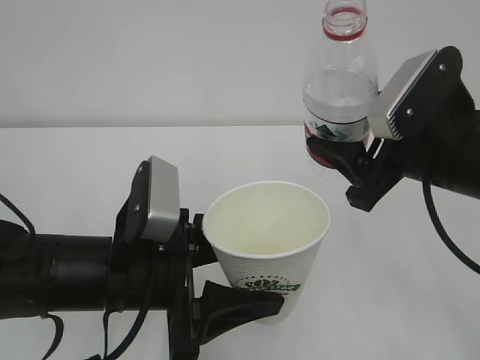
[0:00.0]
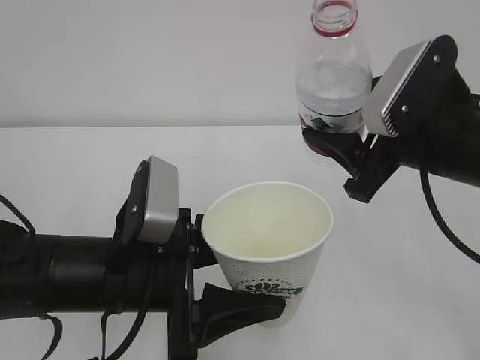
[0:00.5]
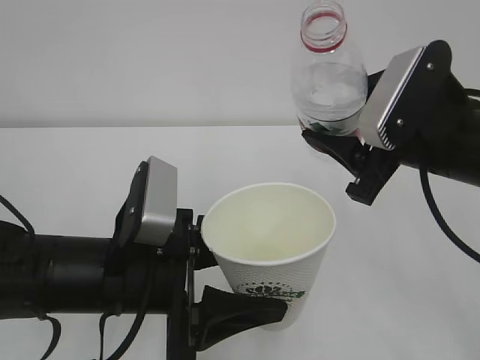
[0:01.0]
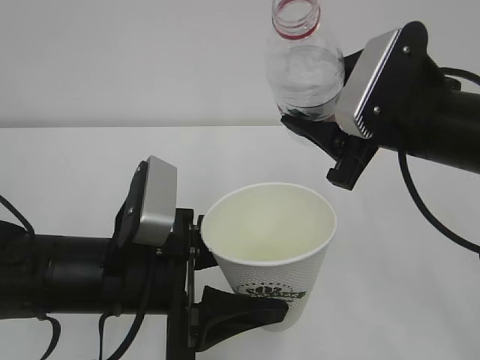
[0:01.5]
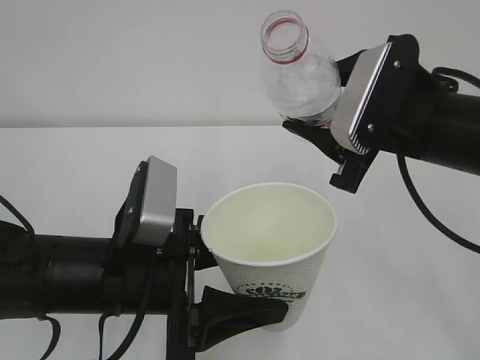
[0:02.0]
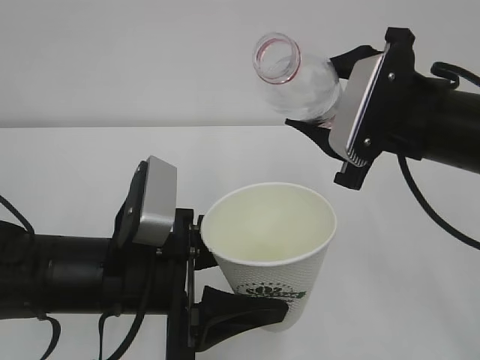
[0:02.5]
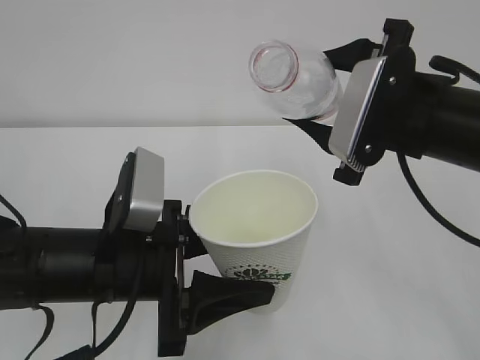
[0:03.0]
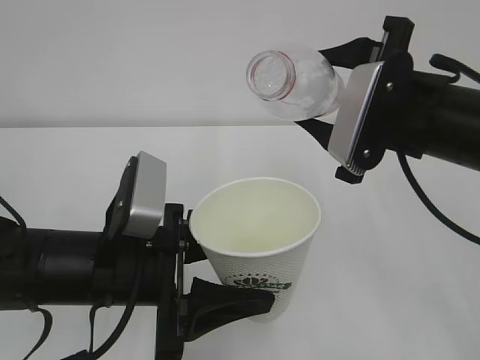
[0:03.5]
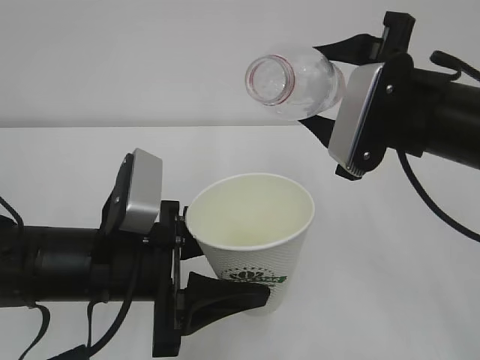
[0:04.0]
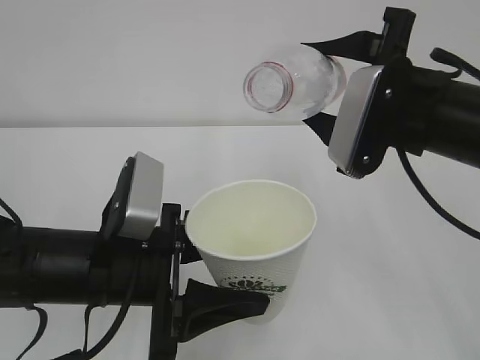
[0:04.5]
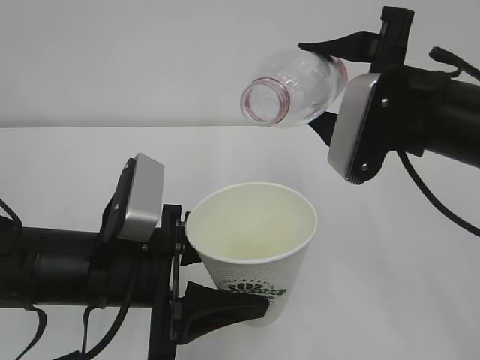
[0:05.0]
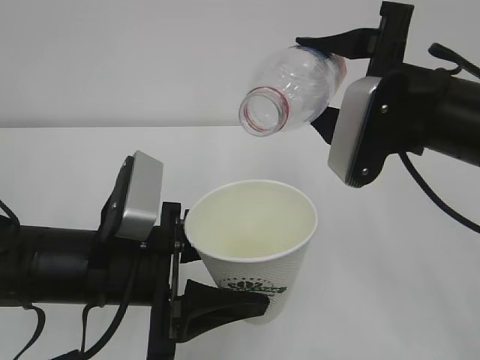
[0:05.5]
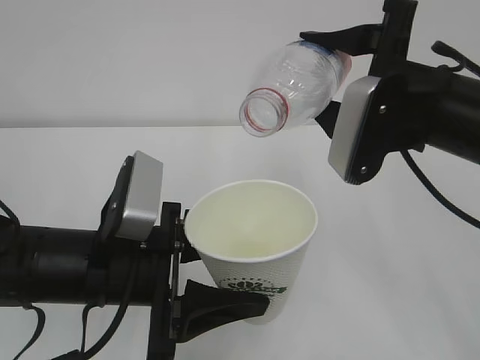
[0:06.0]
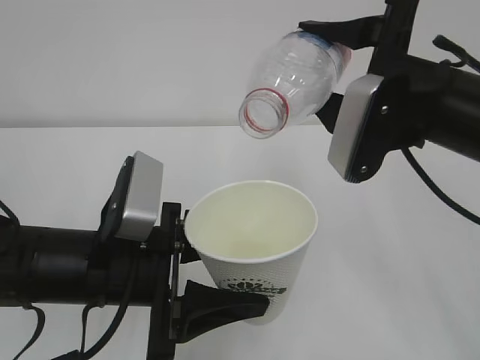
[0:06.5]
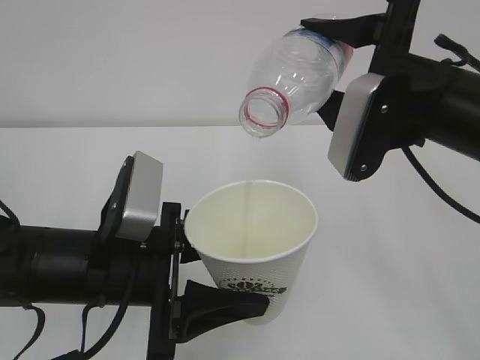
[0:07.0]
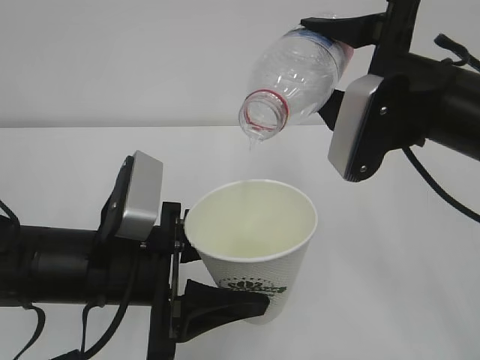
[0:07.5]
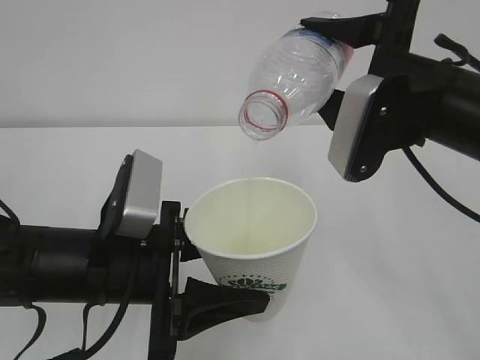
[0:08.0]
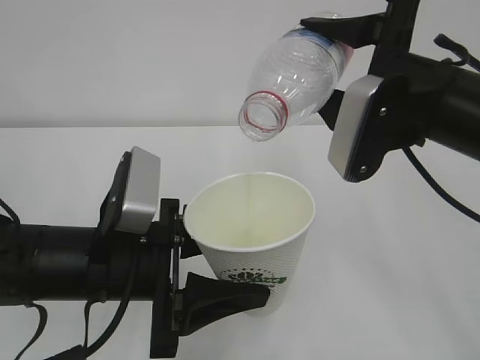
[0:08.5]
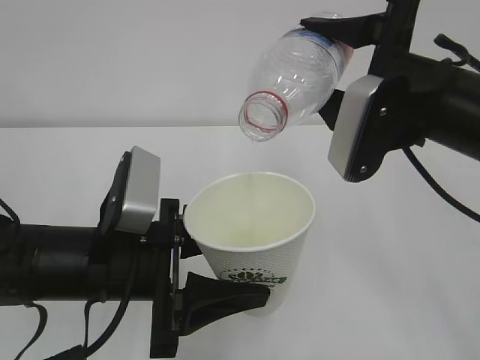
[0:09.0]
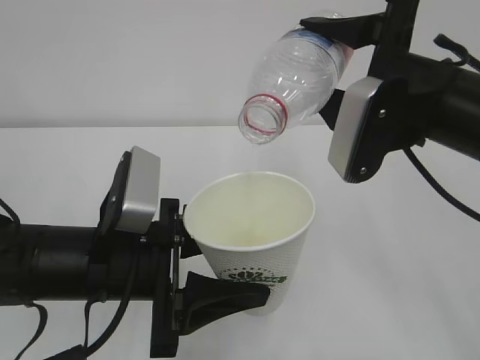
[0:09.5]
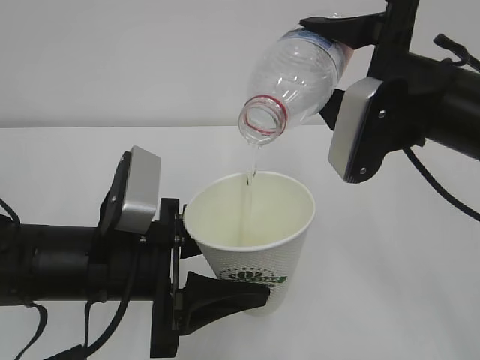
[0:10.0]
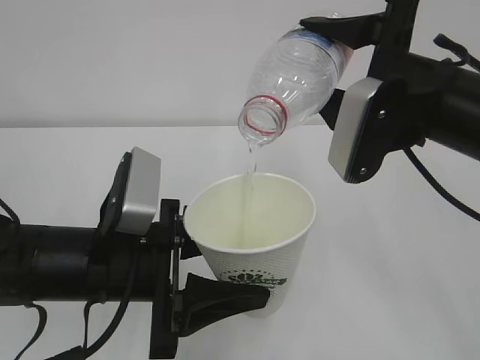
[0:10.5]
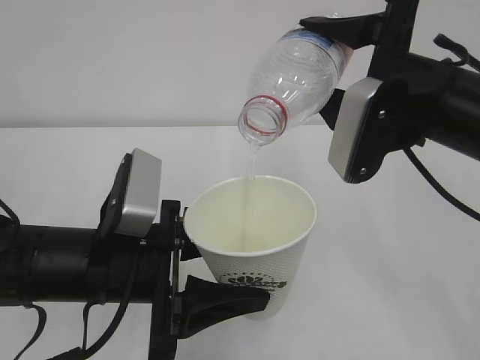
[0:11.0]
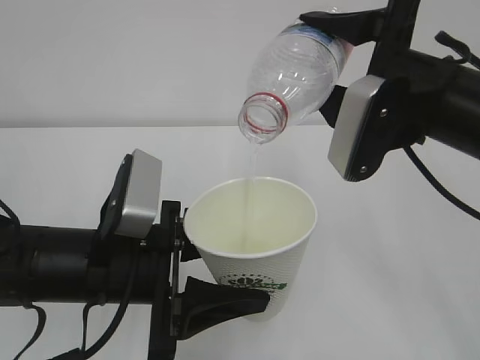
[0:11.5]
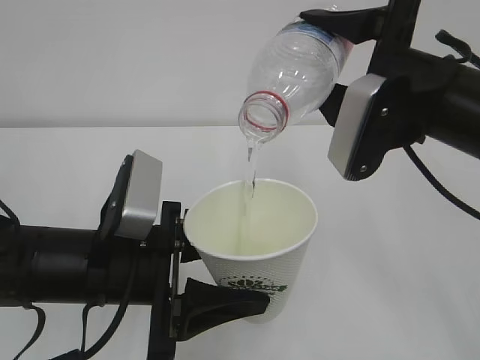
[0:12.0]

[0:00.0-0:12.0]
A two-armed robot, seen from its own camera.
0:02.0 to 0:04.0: The grippers stay close to where they were, moving slightly.
0:04.0 to 0:08.0: The grippers make only small movements.
0:08.0 to 0:12.0: The two grippers keep their place.

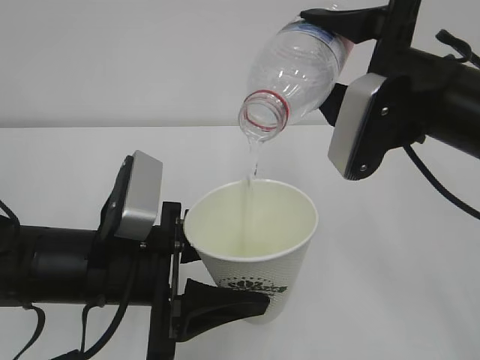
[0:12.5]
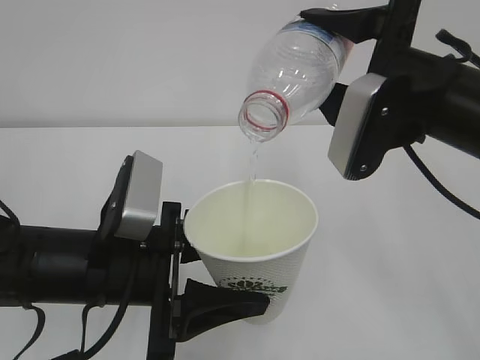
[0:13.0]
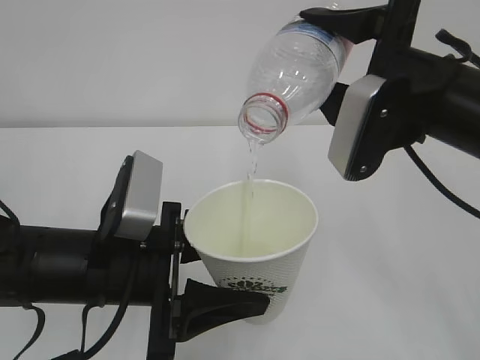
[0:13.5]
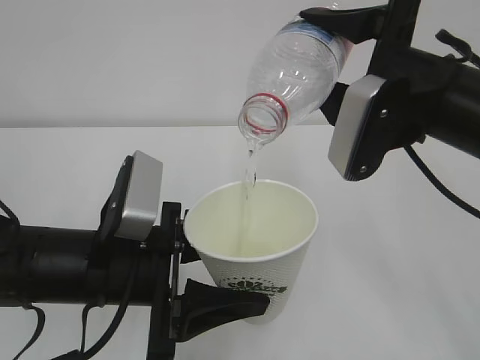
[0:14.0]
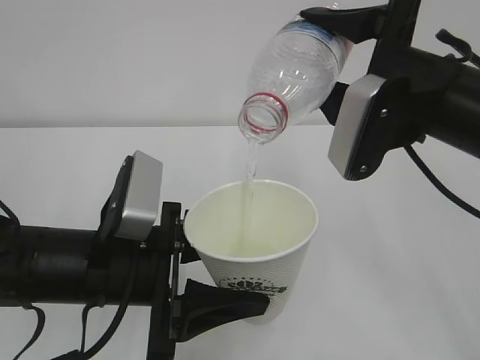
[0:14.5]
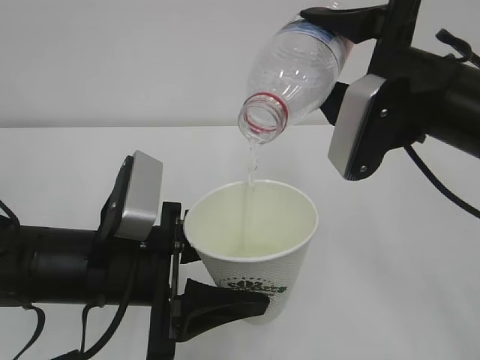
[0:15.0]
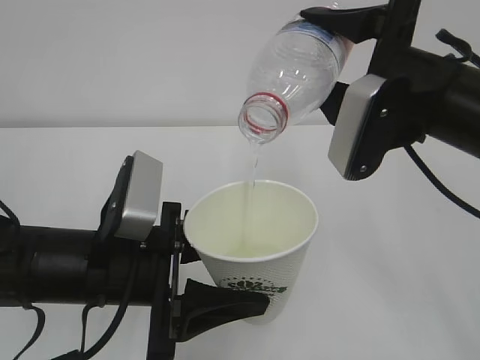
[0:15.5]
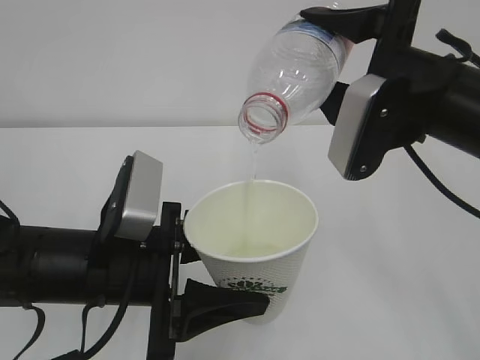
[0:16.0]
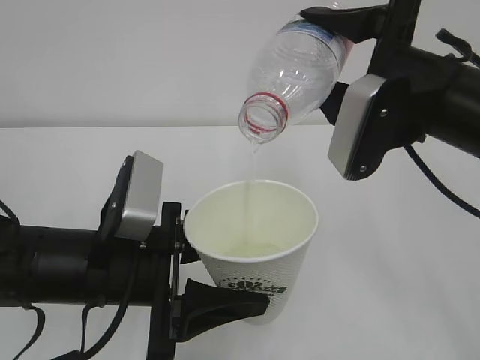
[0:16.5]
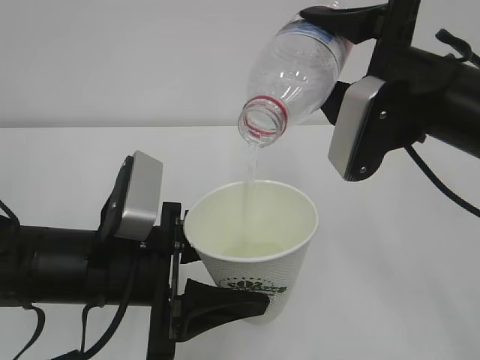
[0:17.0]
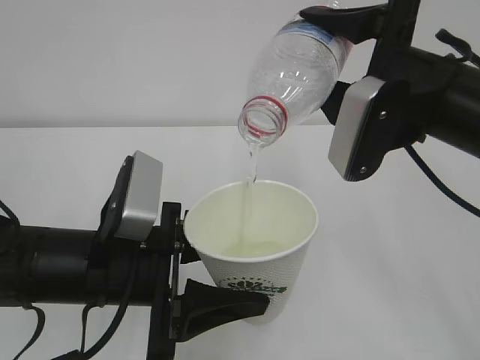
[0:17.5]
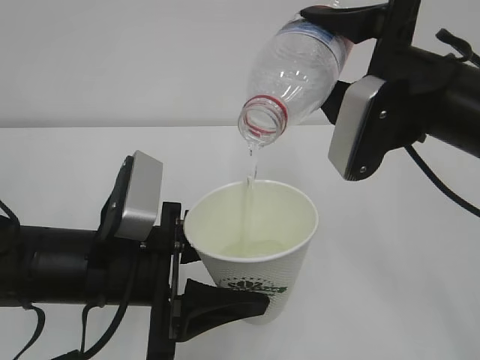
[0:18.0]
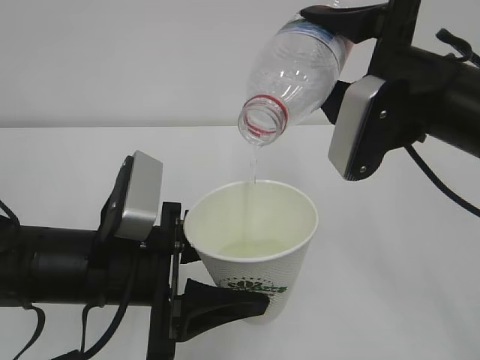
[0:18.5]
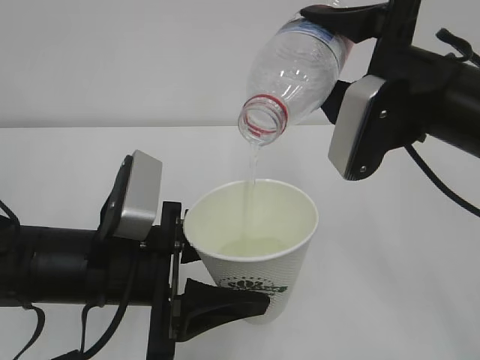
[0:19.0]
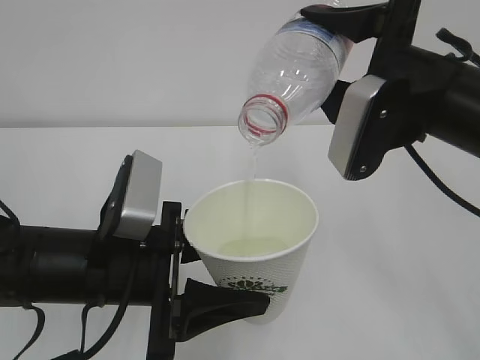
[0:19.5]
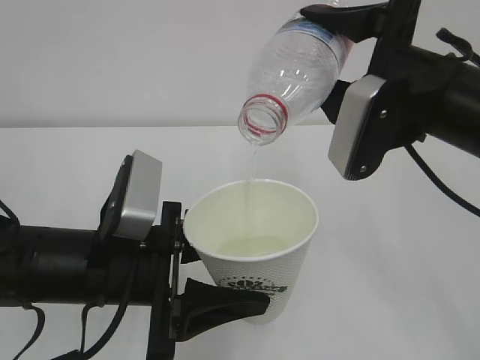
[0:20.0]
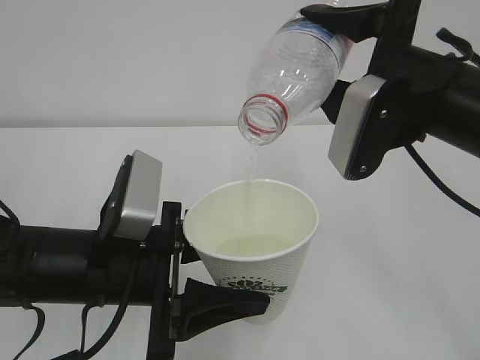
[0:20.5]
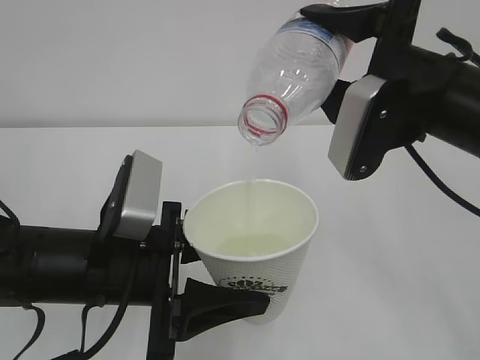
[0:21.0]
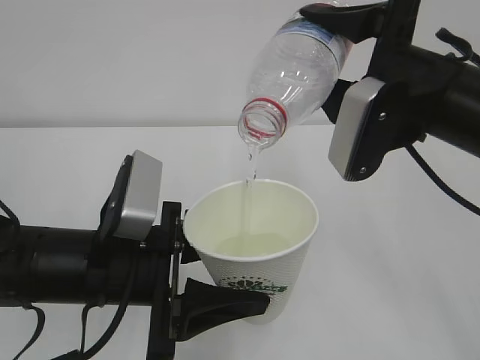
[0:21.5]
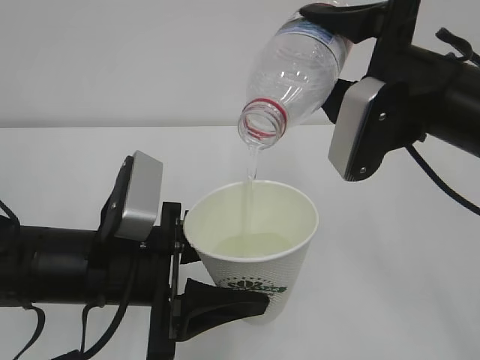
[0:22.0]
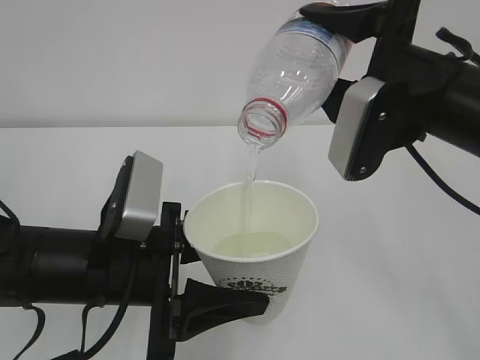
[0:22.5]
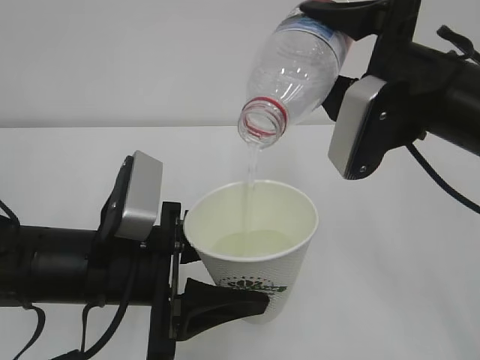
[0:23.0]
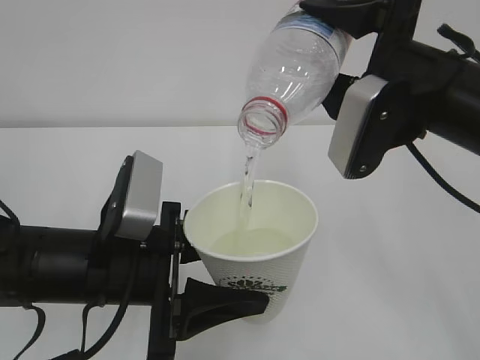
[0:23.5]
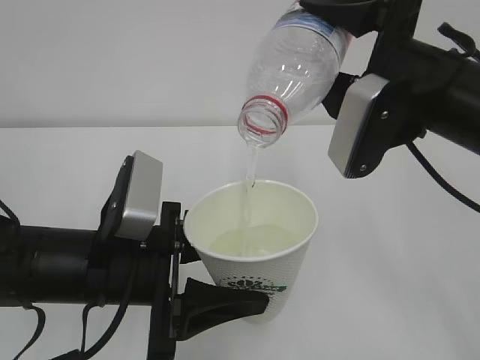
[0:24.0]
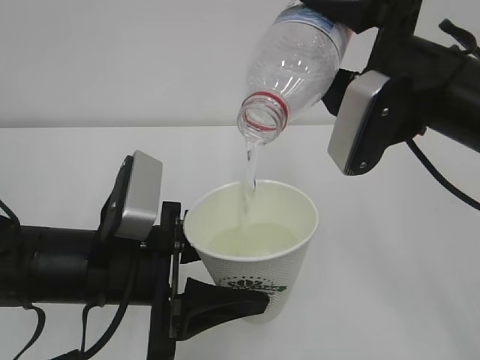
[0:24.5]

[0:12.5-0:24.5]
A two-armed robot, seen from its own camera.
0:12.5 to 0:22.5: Both grippers stay about where they are.
0:22.5 to 0:24.5: Both grippers stay about where they are.

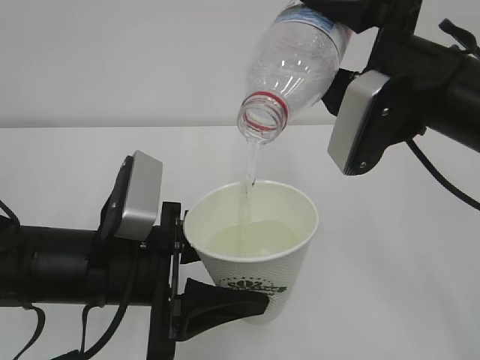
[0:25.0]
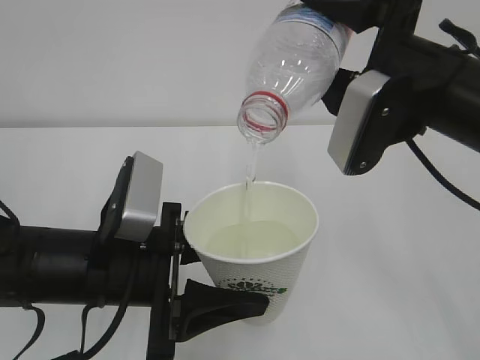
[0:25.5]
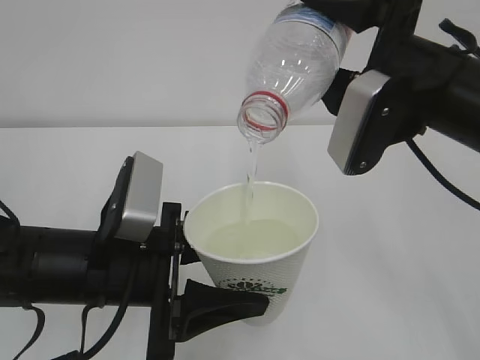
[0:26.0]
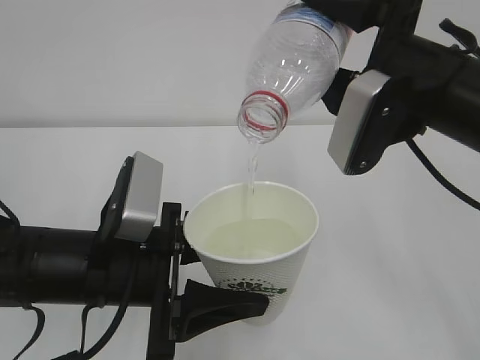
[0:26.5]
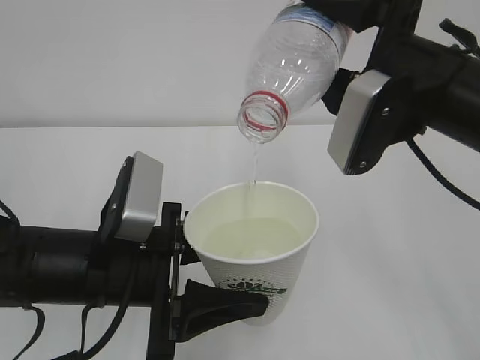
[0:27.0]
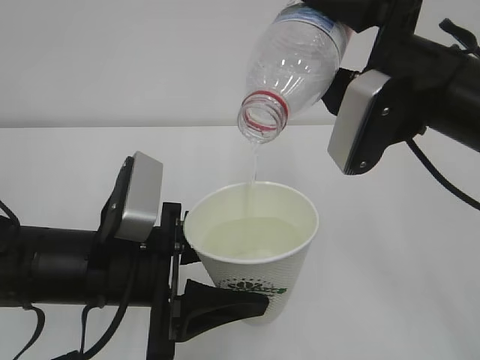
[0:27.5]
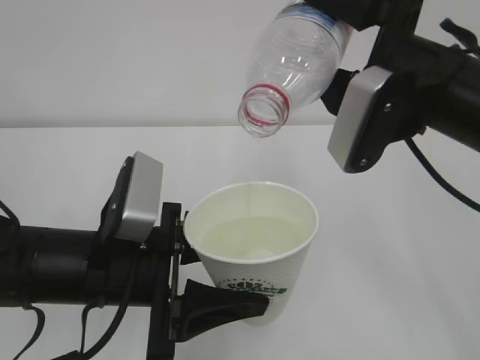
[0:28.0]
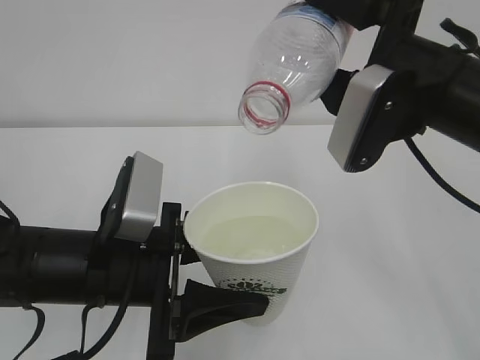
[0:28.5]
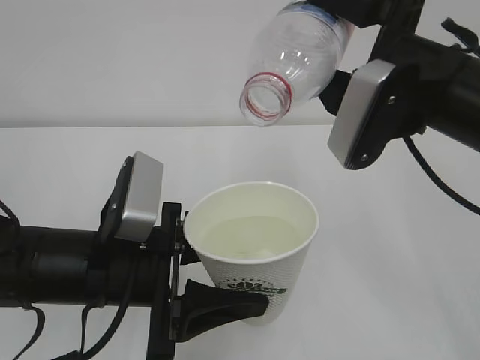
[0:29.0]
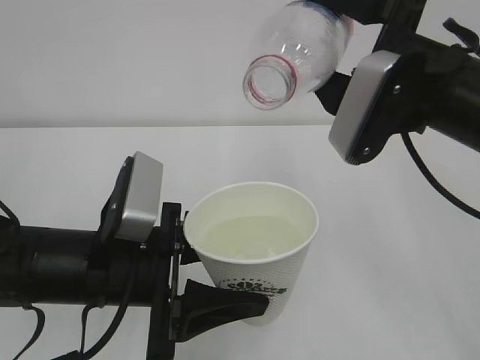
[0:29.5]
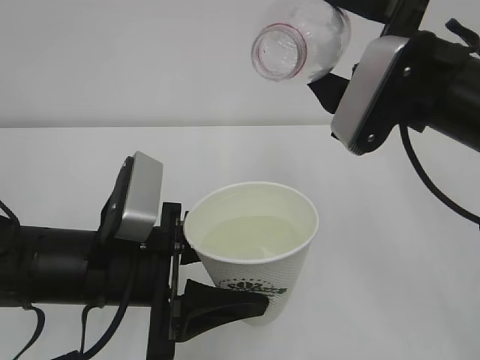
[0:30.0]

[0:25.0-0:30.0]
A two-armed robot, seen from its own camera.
0:25.0 to 0:27.5: Both grippers stay about where they are.
0:27.5 to 0:30.0: There are only small adjustments of the grippers.
